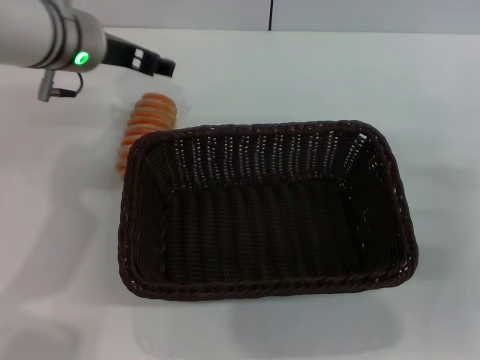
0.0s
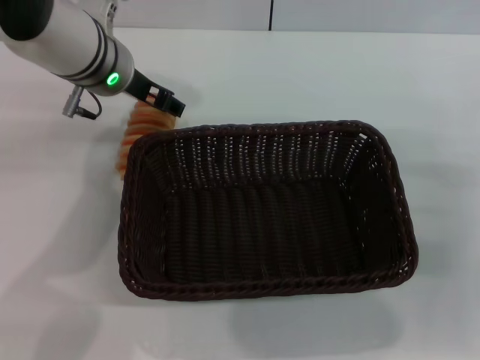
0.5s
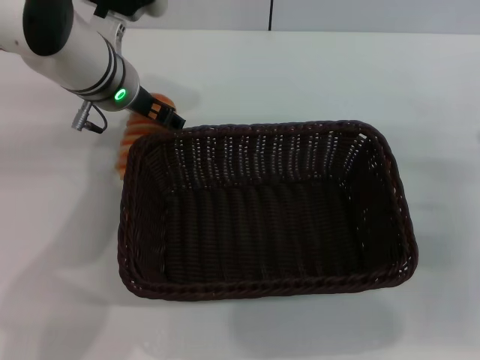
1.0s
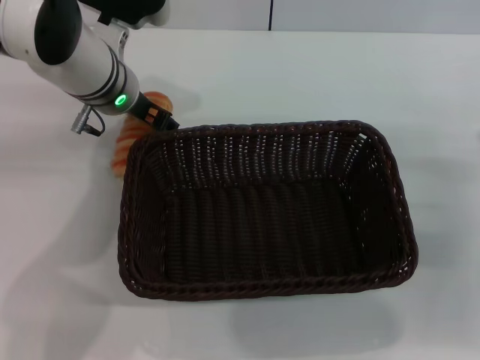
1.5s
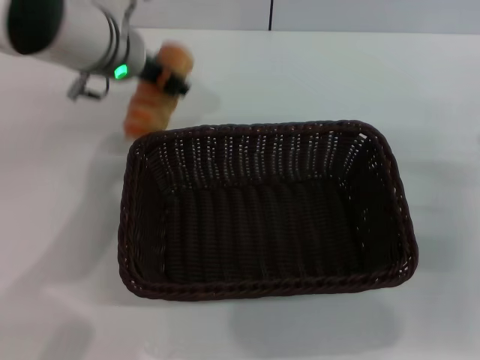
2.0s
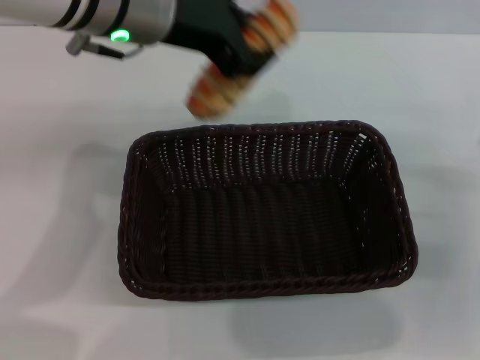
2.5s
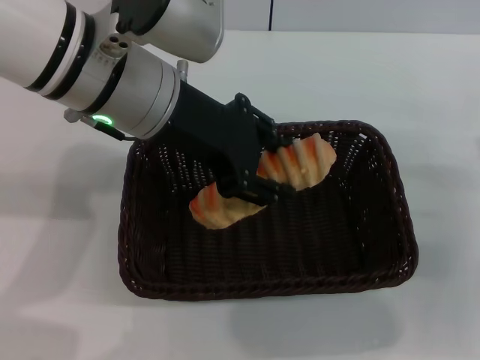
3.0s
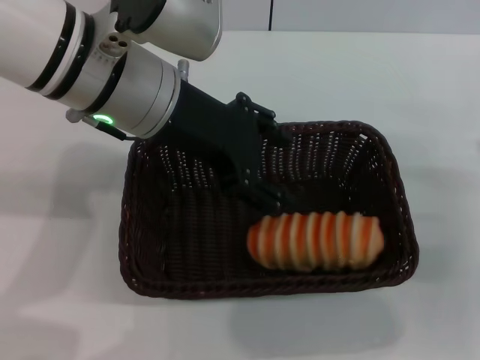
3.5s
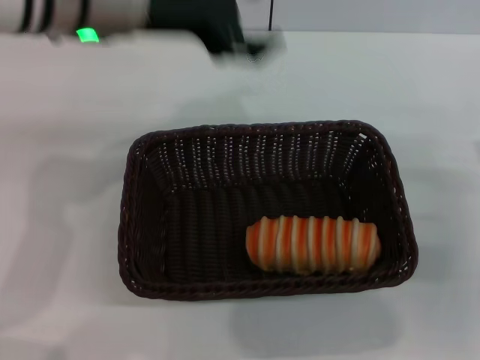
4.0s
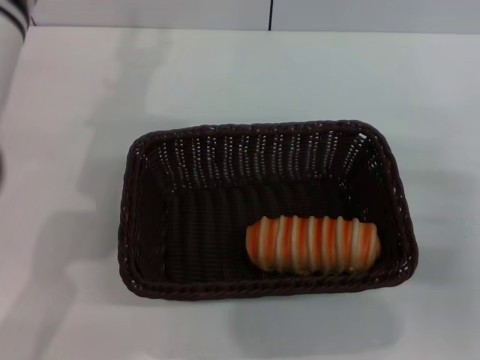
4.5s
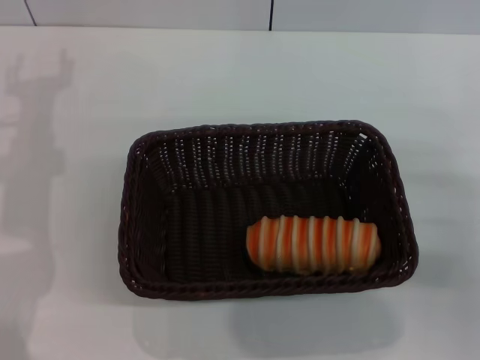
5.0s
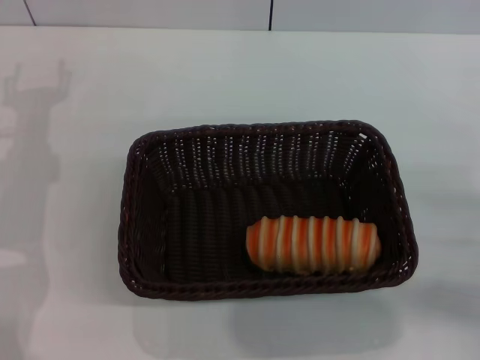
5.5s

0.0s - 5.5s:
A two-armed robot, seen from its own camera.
Step, 2.5s - 3.0s: Place the long bread into the dark basket with the left gripper.
0.0s - 2.0s: The left gripper closes its fingers.
2.0s - 3.5s: The left gripper heads backward and upward, covering about 10 cm, and closes, then reopens.
3.5s - 5.5s: The left gripper shifts some 20 cm to the left and downward. The right gripper shifts by some 5 cm.
